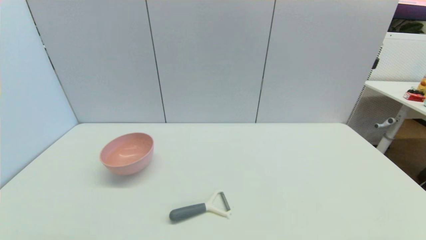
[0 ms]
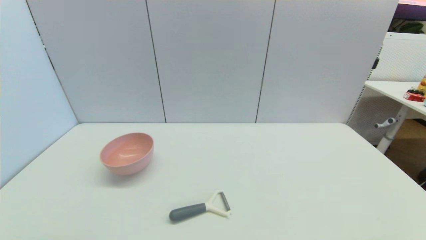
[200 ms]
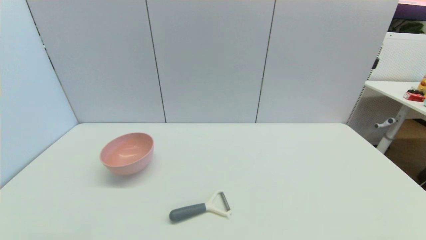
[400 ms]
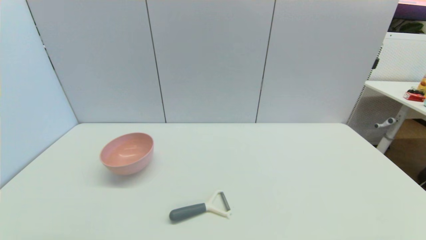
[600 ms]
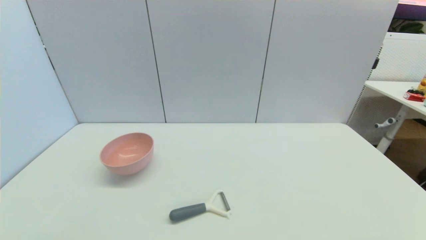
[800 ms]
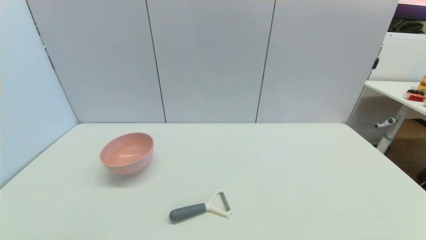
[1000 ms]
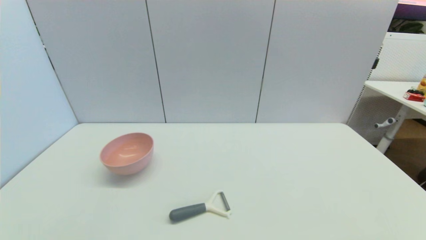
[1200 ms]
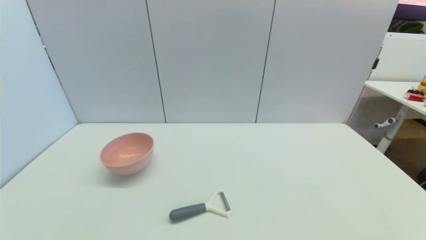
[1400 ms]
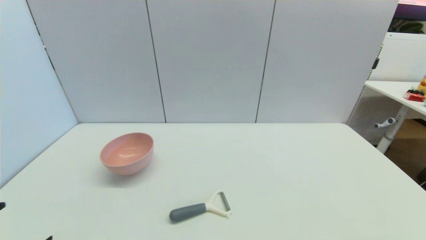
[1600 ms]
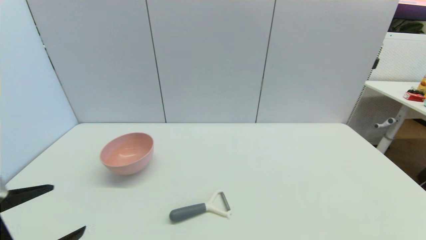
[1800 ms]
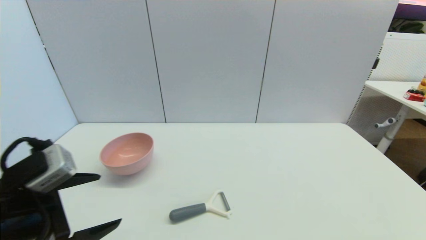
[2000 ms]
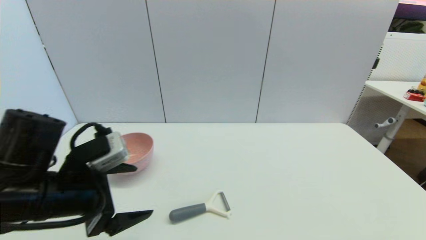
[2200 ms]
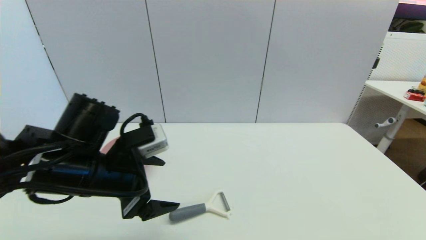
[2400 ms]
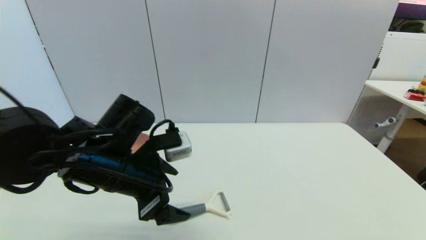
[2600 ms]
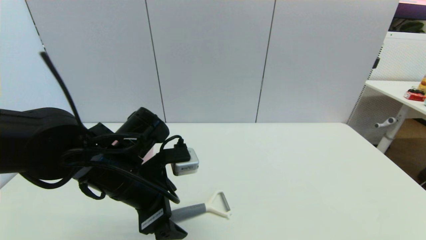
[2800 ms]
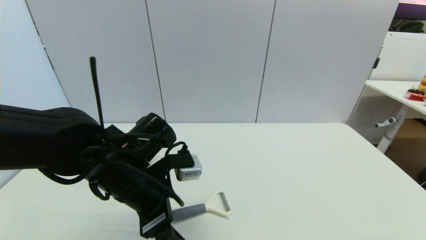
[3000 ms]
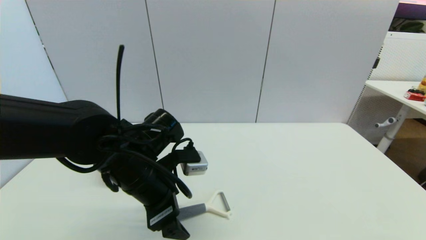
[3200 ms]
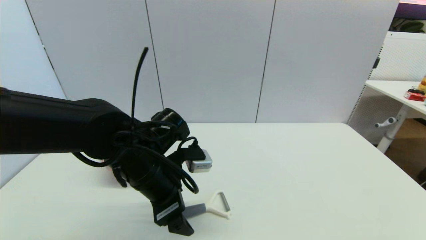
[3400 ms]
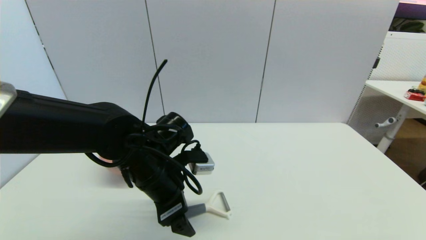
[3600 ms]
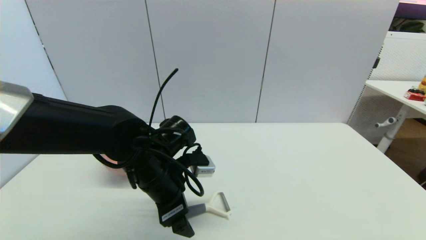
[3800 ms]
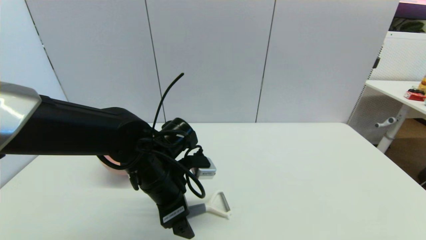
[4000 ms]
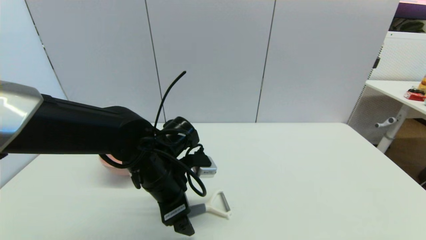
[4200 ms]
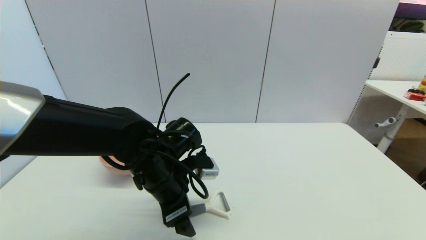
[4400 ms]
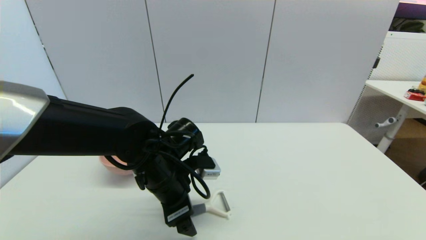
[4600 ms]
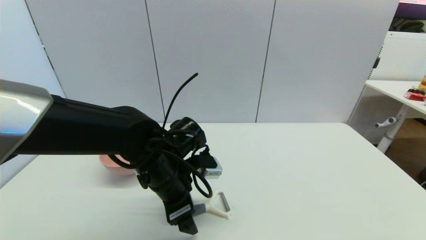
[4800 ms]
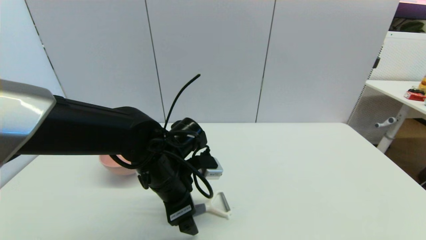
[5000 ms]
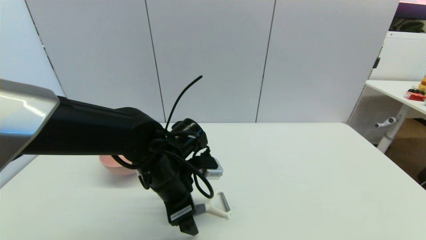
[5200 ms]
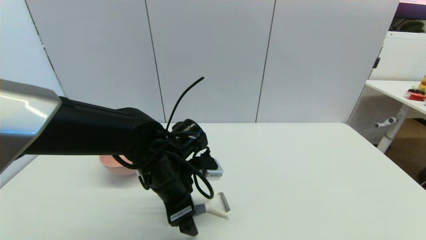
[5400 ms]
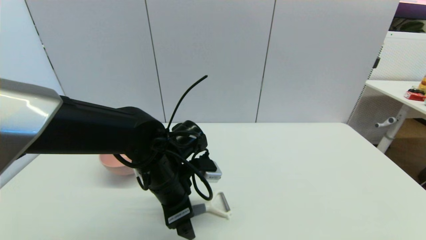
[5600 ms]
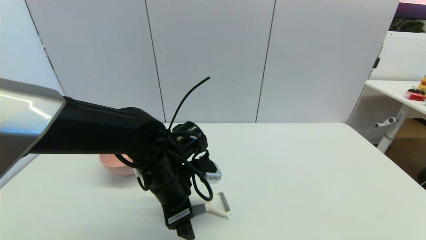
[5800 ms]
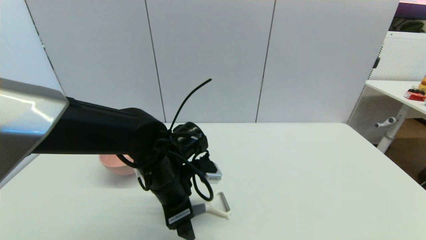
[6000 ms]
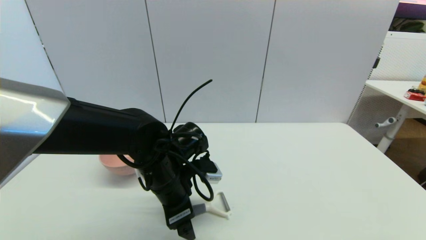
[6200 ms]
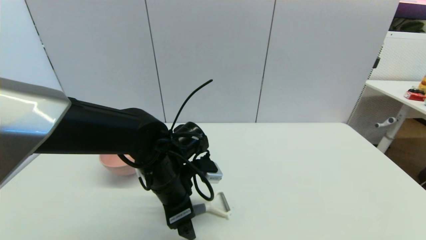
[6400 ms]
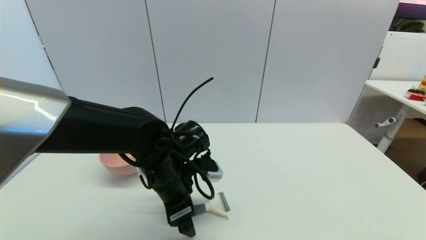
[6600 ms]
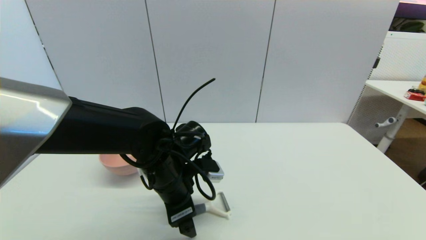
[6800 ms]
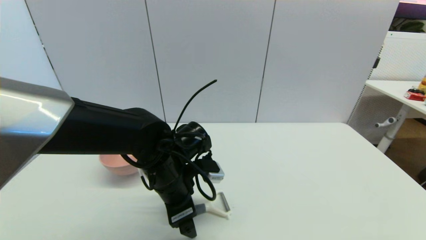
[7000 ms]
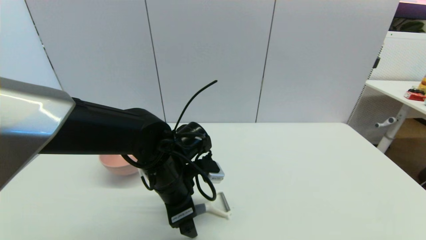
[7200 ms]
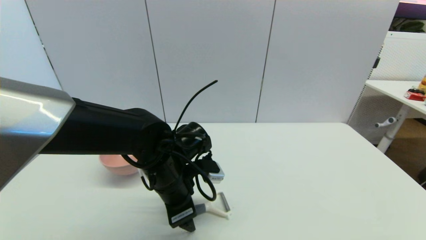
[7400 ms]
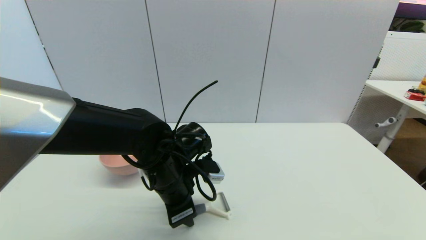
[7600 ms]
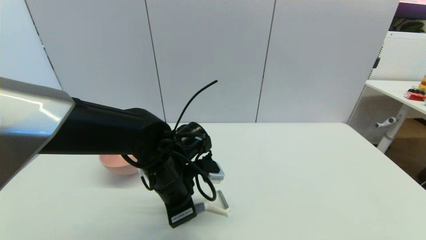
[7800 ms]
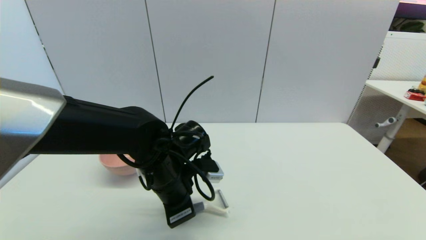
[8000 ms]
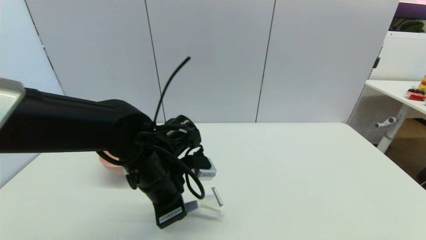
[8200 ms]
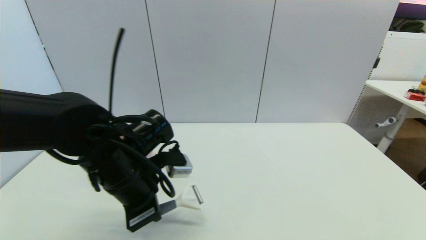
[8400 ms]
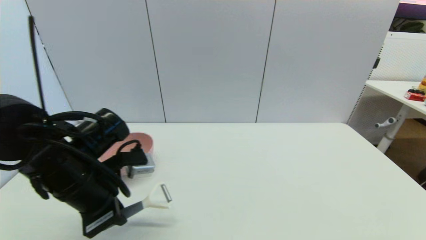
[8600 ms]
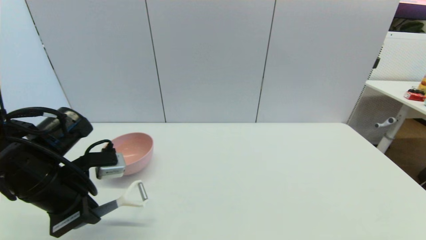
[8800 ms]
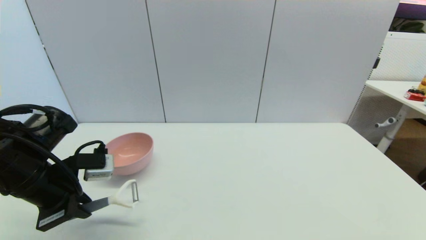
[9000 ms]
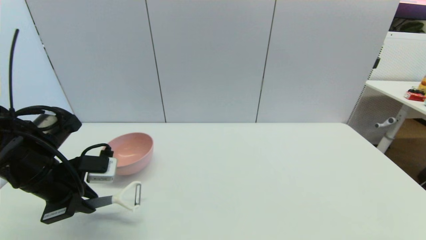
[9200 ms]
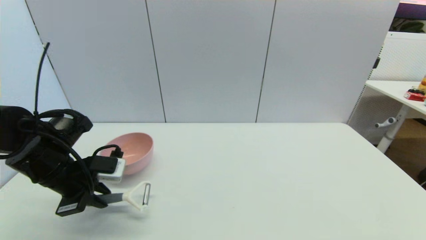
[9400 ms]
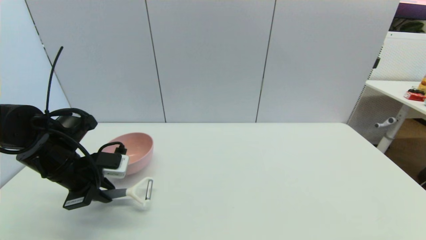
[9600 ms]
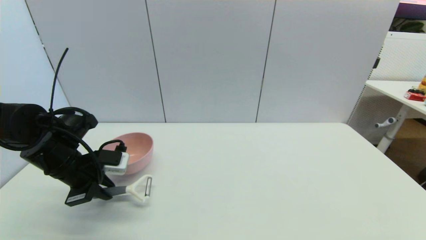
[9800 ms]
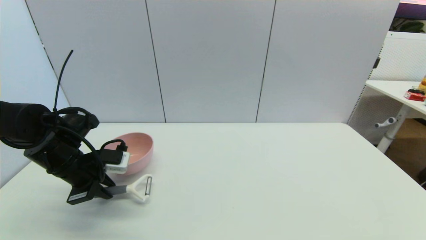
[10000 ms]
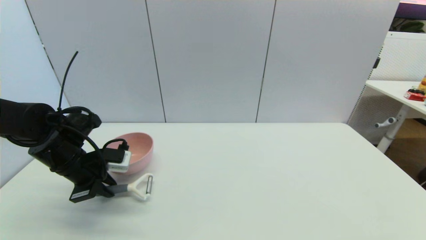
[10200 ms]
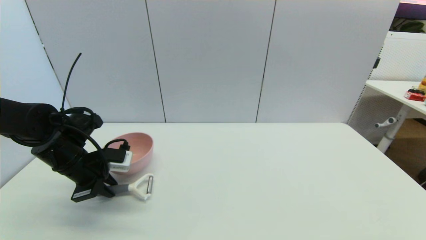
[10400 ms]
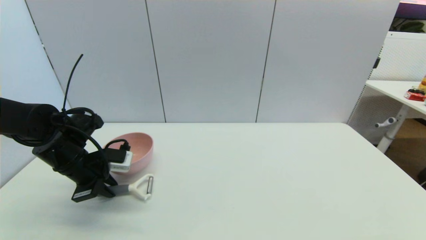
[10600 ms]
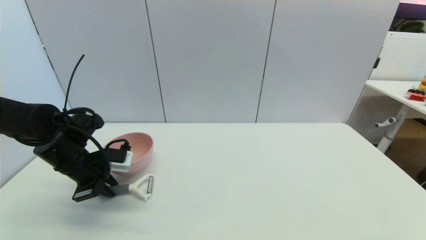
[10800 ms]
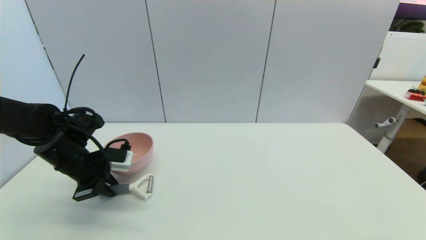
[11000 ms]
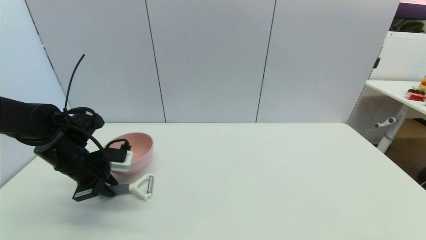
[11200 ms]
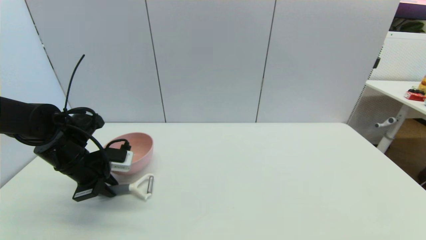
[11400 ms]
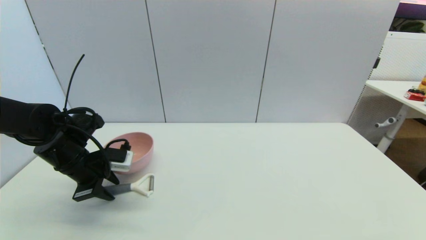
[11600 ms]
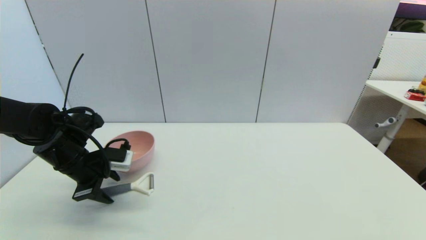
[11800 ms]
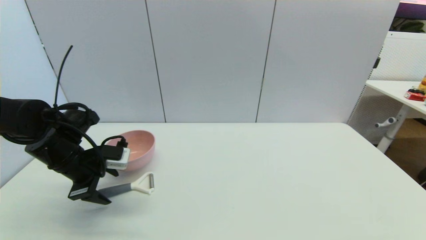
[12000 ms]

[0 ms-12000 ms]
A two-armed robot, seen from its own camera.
Step, 1800 ms to 8200 ms: Grasp the peeler with left gripper.
Step, 8400 ms to 12000 ms: Place the peeler on the table with left gripper.
1600 ms to 3000 ms: The left gripper travels forward and to the right by some 25 cm.
3000 ms to 4400 ms: There are only small adjustments of the grippers.
4400 ms to 6000 ms: The two grippers keep their place.
6000 ms to 7600 ms: The left gripper closes up.
7600 ms to 9000 ms: The left gripper shifts about 20 cm to the left, and closes its fingers.
9000 ms to 10400 ms: The left gripper moves forward, approximately 10 cm.
10400 ms to 12000 ms: The left gripper opens.

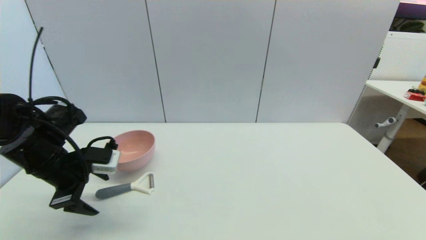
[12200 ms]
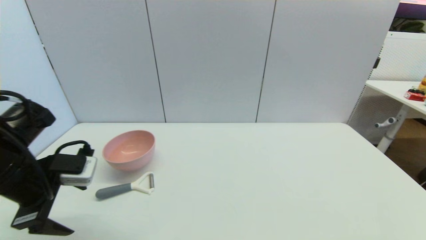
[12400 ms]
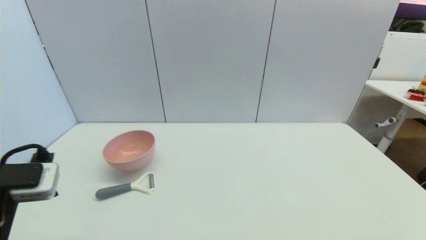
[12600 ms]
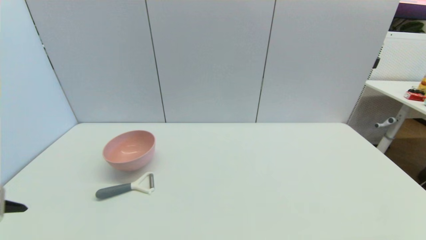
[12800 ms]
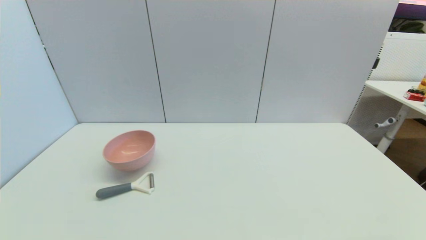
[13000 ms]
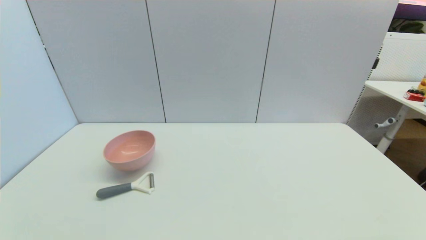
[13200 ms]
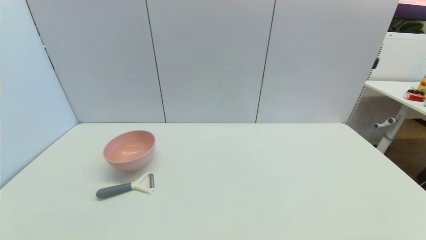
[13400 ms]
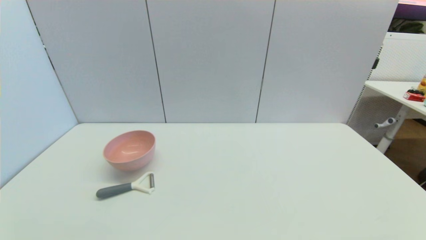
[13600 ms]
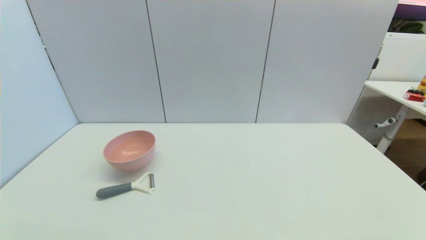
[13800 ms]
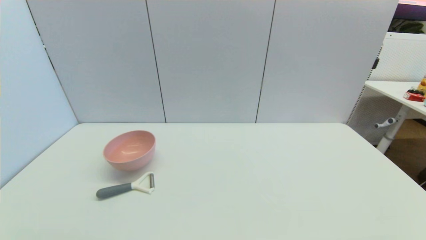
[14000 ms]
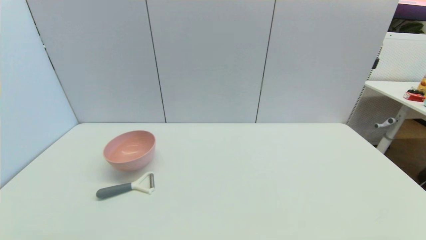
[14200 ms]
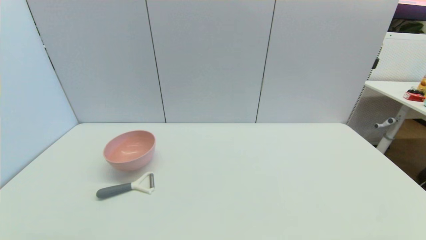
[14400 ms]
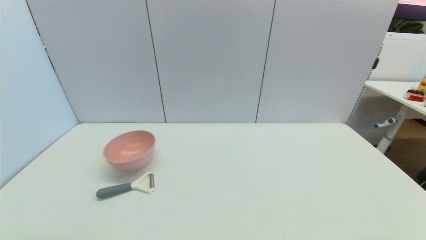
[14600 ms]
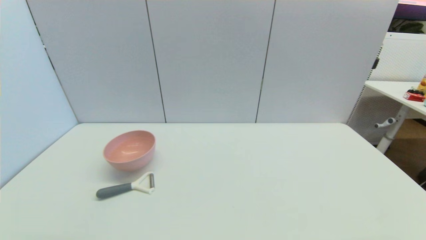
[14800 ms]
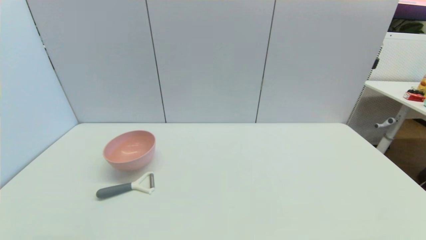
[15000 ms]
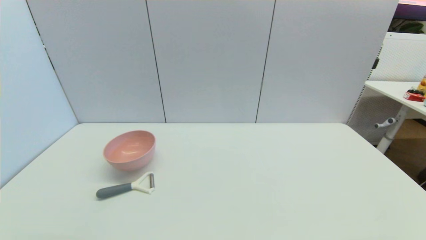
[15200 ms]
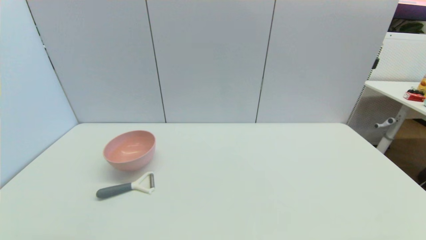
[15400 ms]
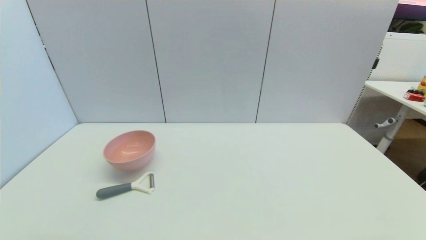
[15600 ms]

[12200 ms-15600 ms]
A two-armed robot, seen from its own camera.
12200 ms to 13800 ms: The left gripper travels backward by some 30 cm.

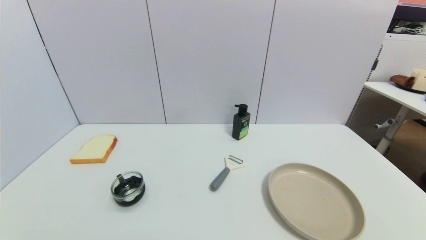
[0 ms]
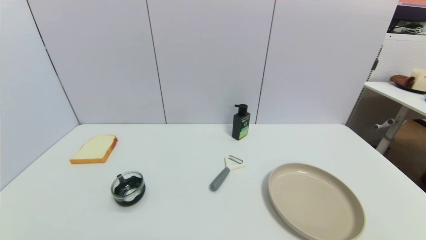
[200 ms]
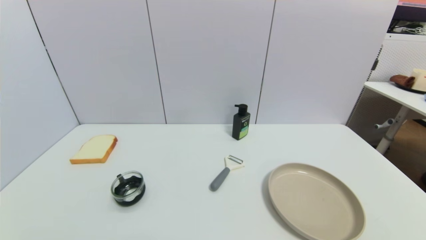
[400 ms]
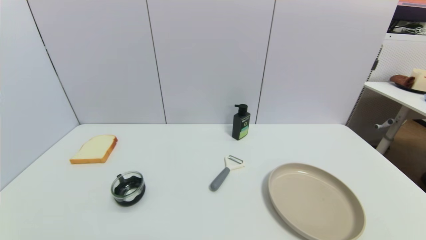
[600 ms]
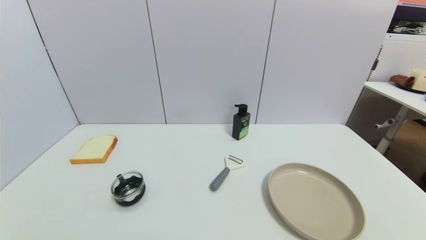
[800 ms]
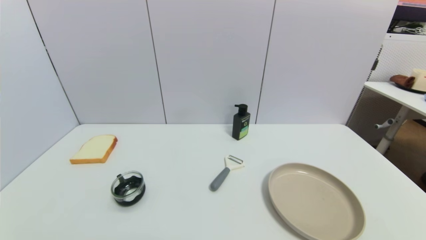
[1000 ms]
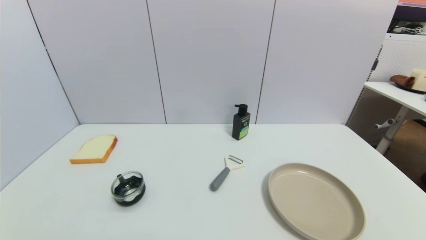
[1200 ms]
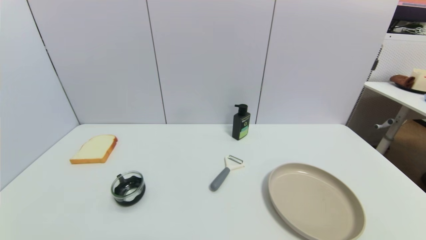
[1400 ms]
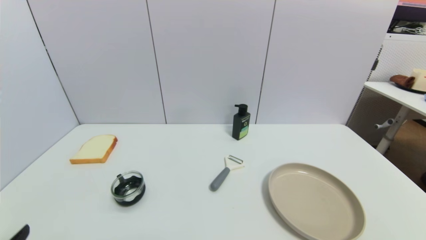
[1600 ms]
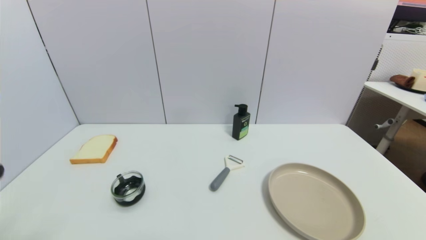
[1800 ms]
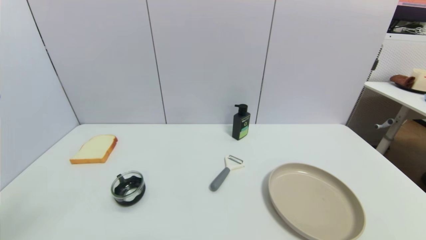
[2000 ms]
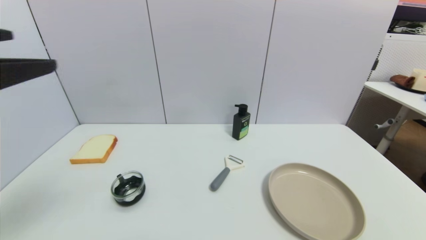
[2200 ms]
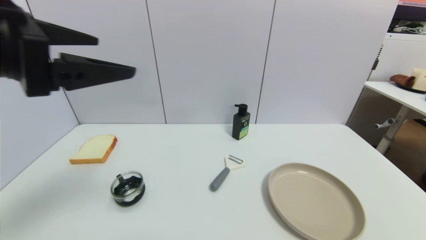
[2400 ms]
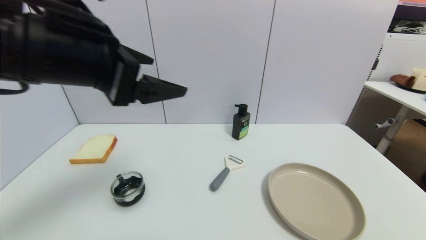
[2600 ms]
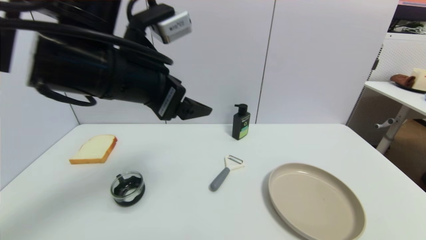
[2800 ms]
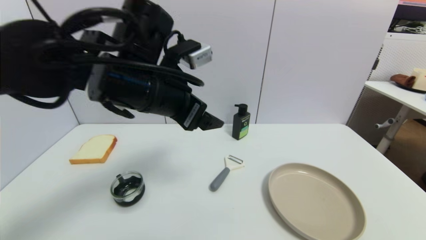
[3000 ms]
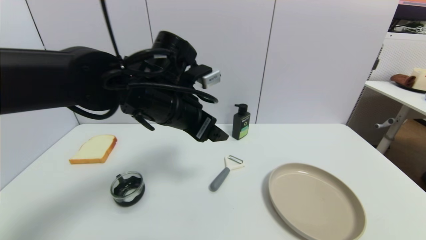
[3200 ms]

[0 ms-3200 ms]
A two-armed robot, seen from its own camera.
1600 ms to 3200 ms: The left gripper travels forward and to the right by roughly 35 cm.
